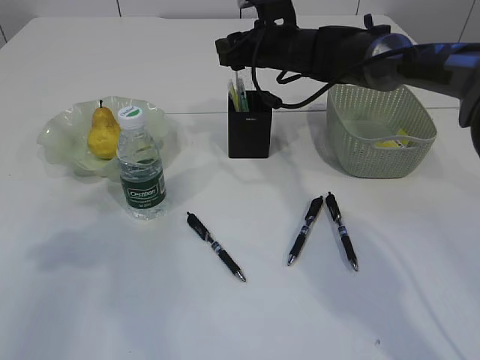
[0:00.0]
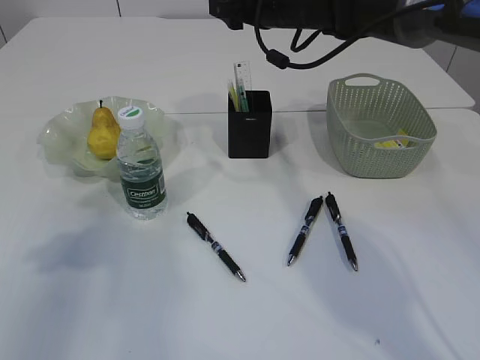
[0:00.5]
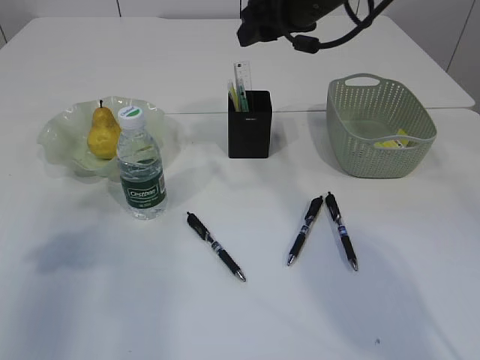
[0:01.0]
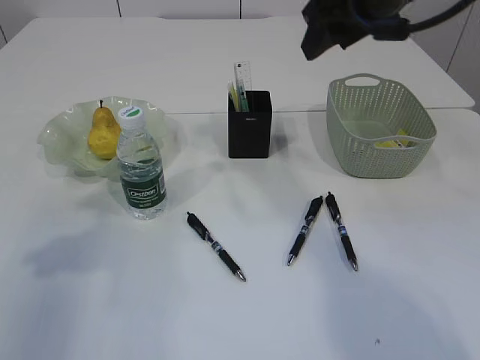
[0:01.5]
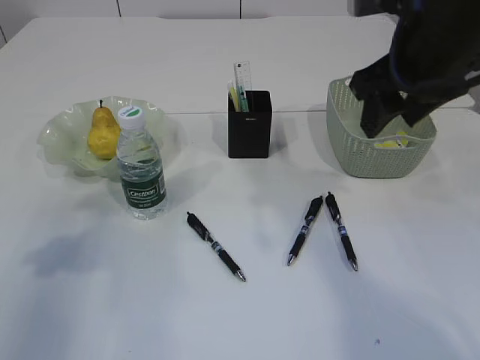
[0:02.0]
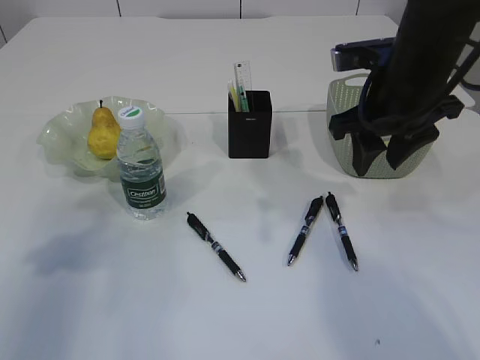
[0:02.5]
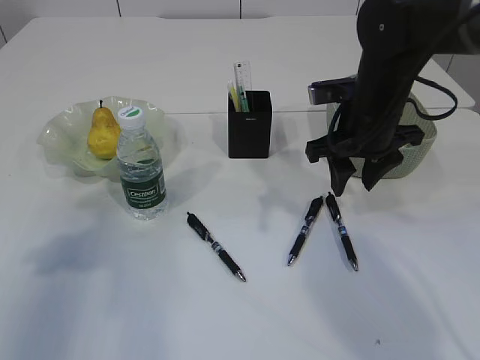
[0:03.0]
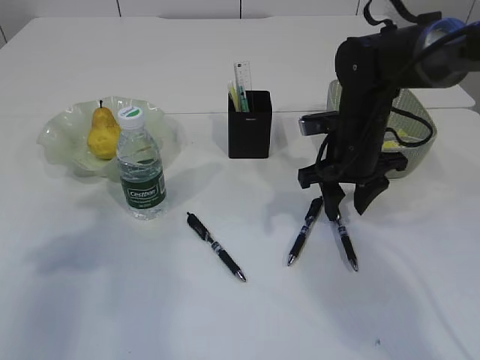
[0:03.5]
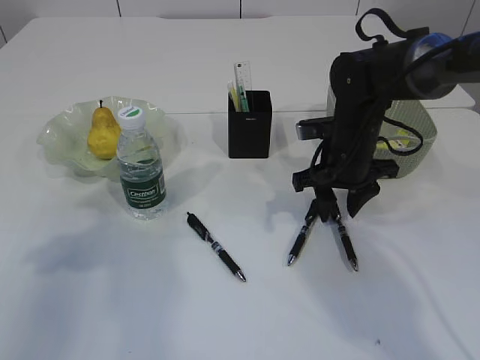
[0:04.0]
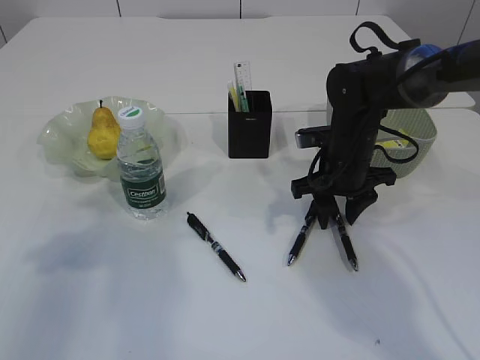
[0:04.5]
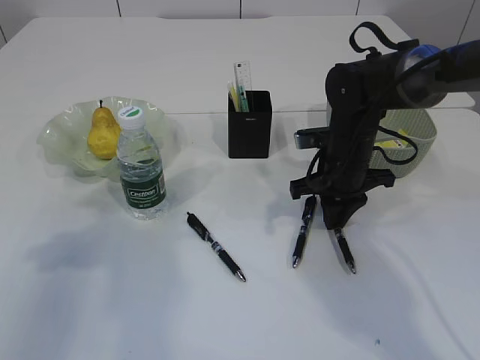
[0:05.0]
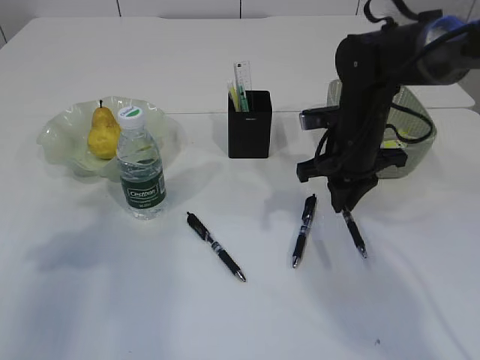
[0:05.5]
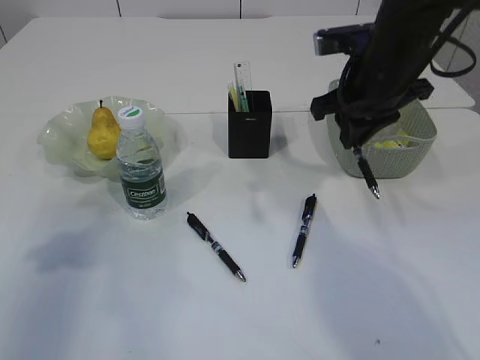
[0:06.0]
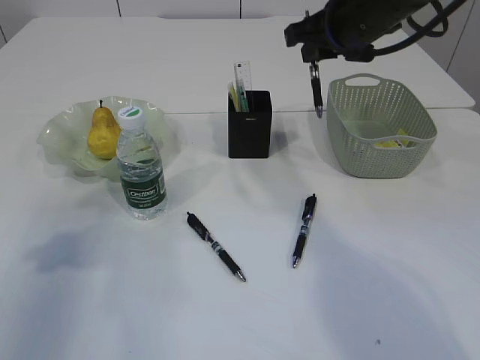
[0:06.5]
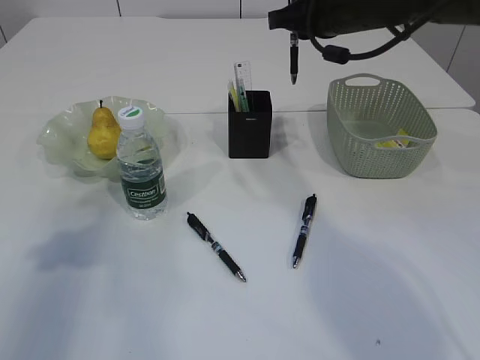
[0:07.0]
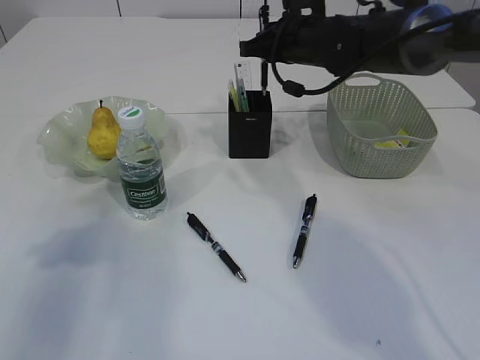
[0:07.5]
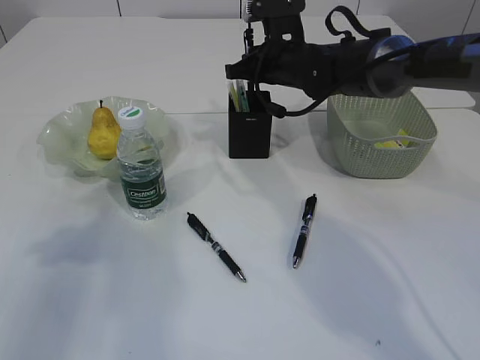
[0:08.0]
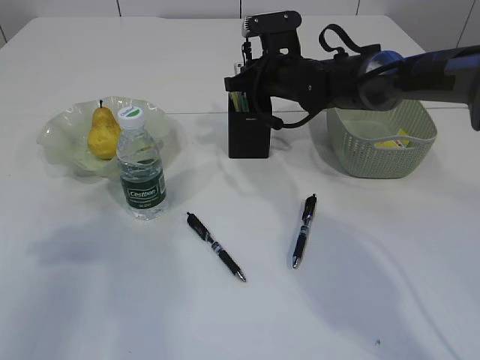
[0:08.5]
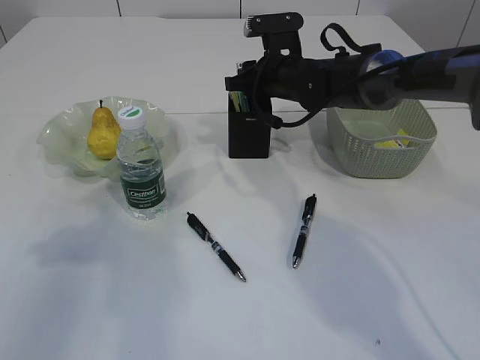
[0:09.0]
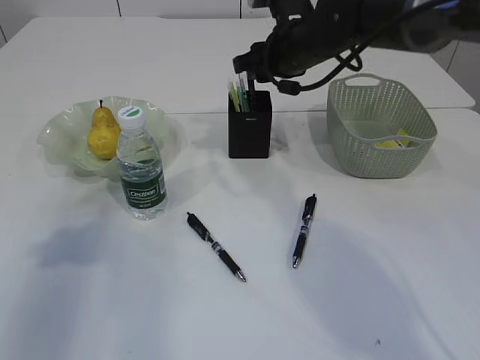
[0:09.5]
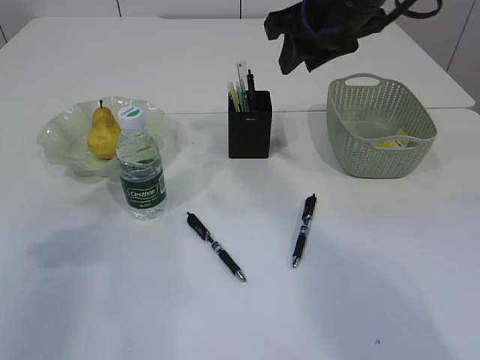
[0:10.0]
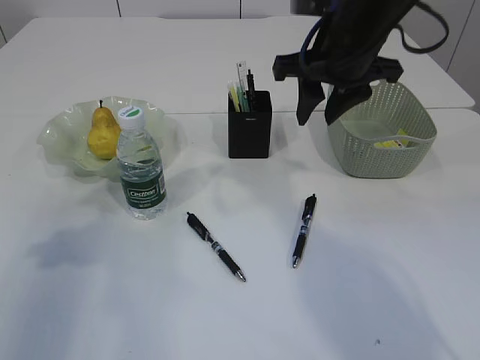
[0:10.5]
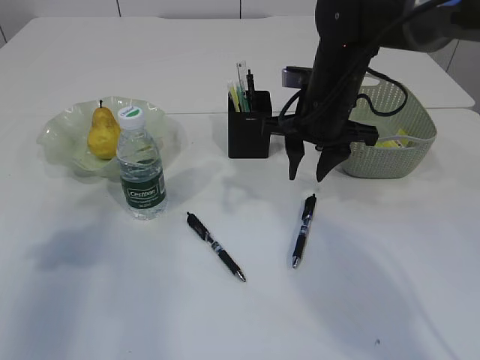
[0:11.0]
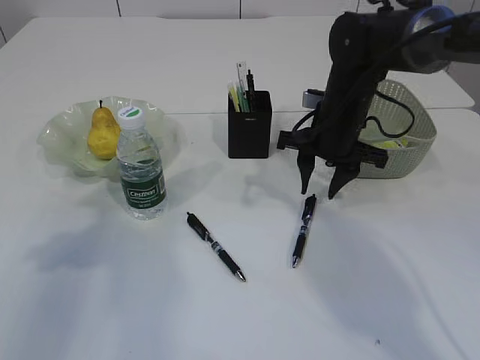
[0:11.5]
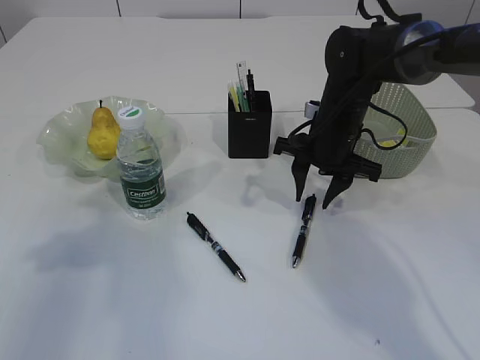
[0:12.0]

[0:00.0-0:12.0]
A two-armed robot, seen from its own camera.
Step, 0:01.5 to 0:05.5: Pick up the pen with right arm.
Step, 0:06.0 to 0:10.0: Place the pen into the pen holder.
0:00.0 to 0:02.0: The right gripper moves backward, upward and to the right, about 25 cm.
0:02.0 to 0:04.0: The right gripper shifts about 20 cm downward and forward.
0:04.0 to 0:06.0: The right gripper moves upward, some 10 cm, and closes up.
0:06.0 to 0:08.0: The right gripper goes some 15 cm forward, to the left and downward.
0:08.0 to 0:10.0: The right gripper goes about 15 cm upward and backward, and opens up.
0:10.0 to 0:12.0: The right gripper travels downward by approximately 15 cm.

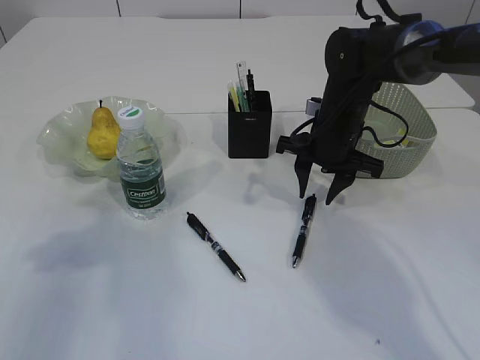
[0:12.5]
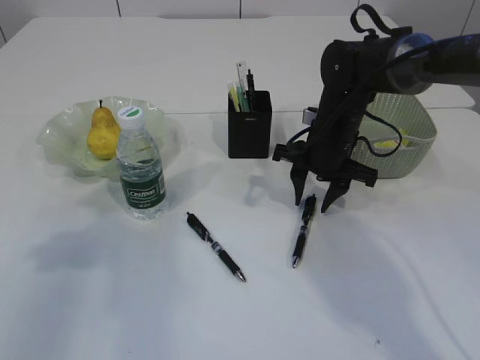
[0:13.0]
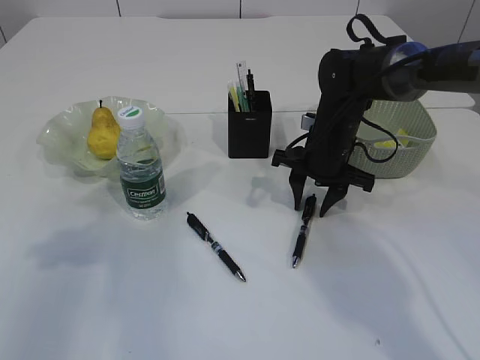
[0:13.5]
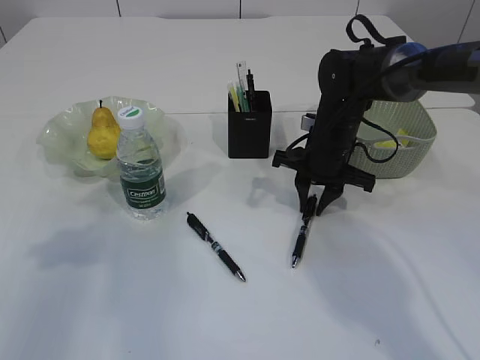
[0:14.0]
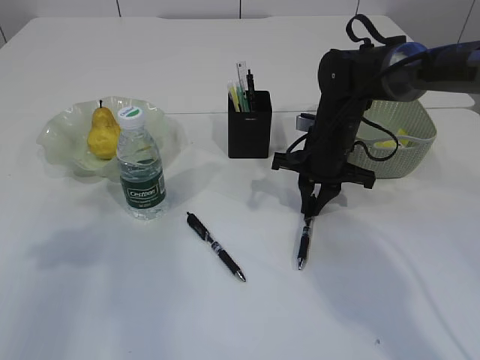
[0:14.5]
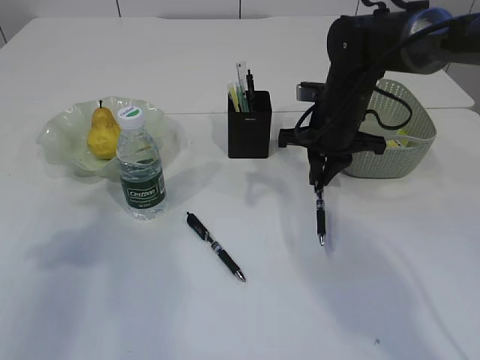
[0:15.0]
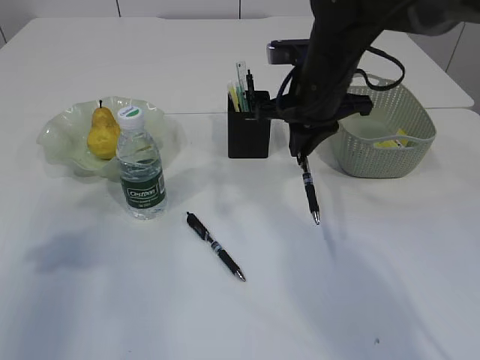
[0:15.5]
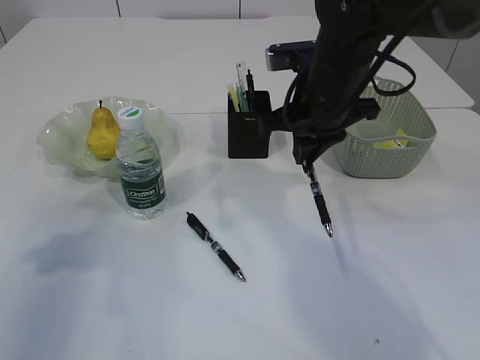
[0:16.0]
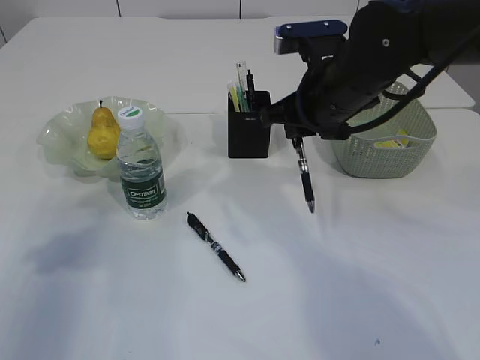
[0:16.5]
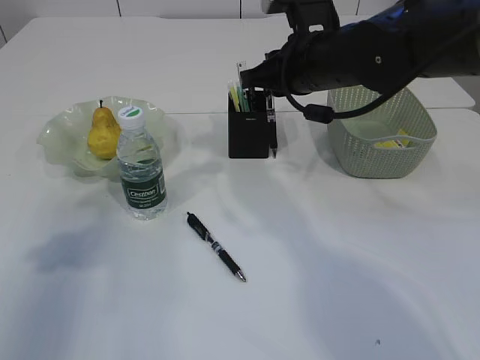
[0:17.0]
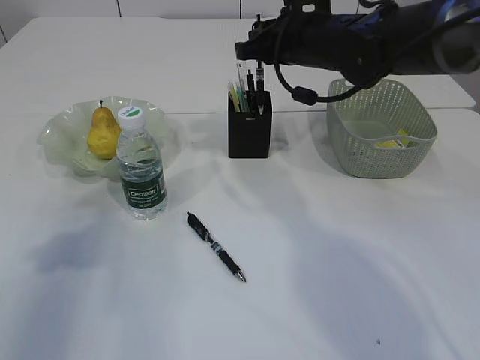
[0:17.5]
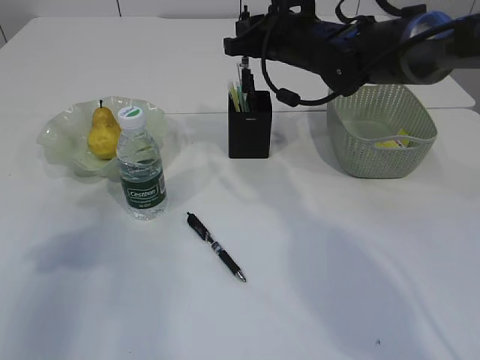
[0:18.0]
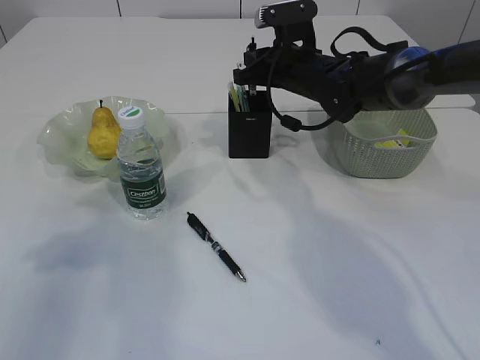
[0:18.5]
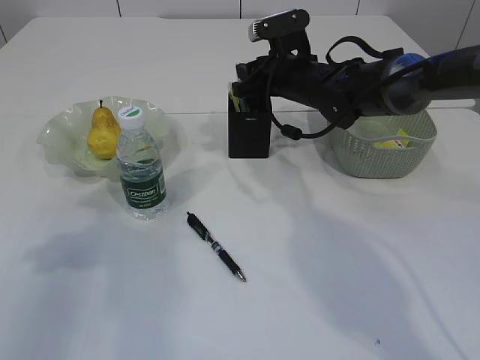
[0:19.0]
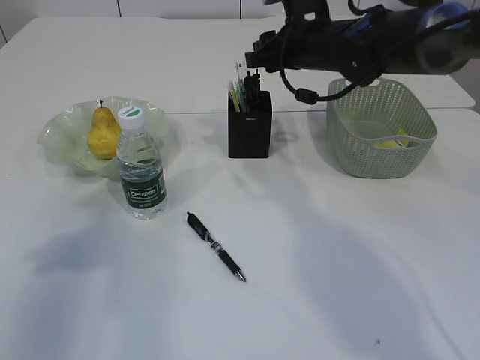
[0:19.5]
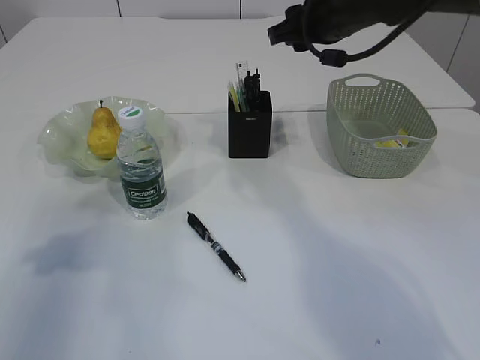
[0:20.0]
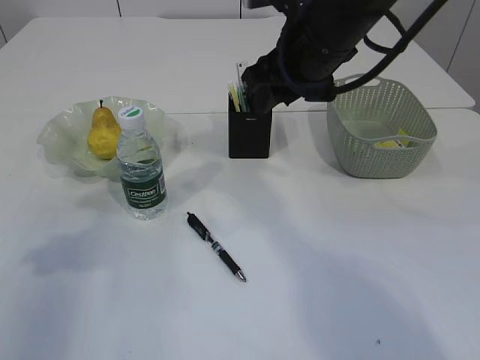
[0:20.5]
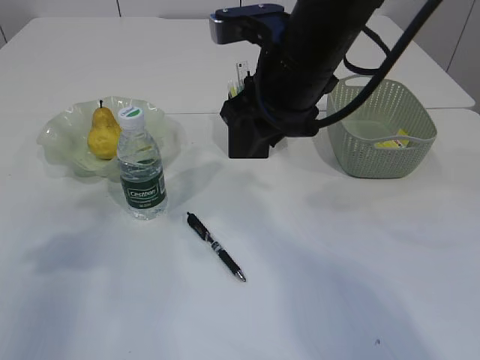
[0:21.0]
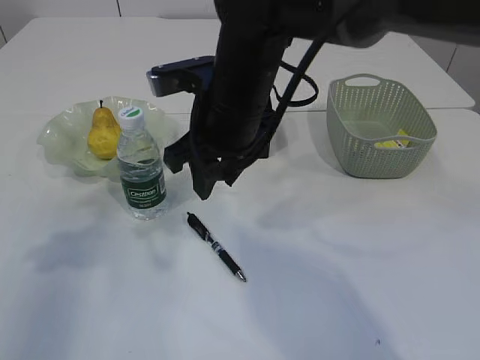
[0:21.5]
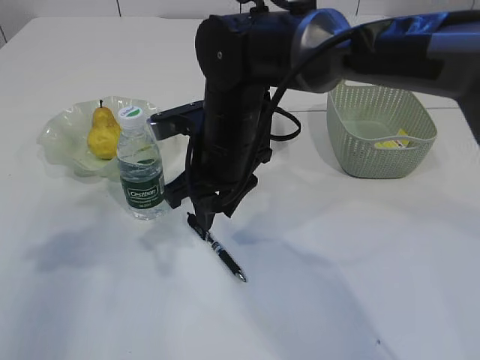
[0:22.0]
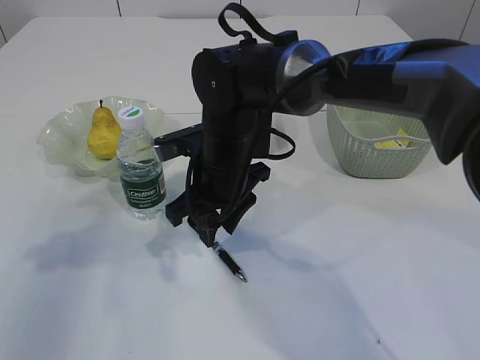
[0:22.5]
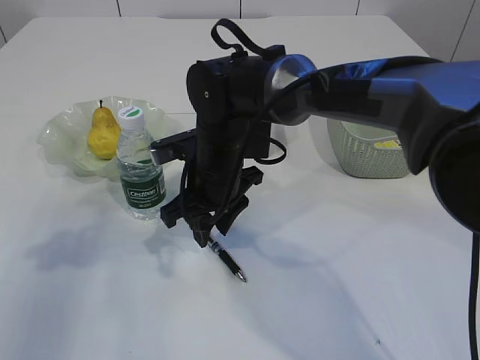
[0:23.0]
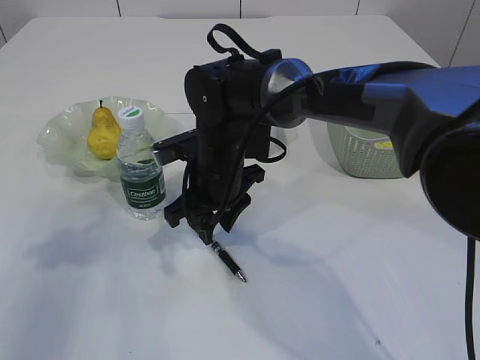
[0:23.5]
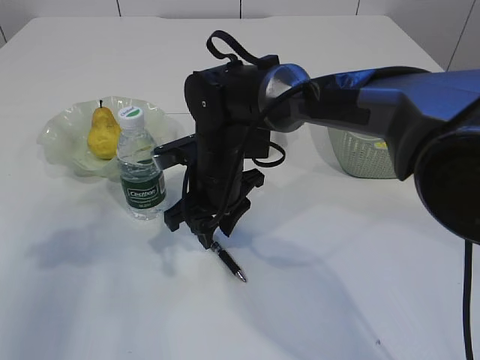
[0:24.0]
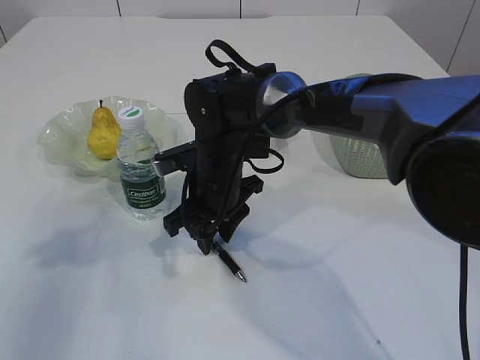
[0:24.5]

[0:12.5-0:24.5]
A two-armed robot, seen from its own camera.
Step, 0:12.5 to 0:15.0: Pick up the pen with right arm.
Step, 0:15.5 to 0:19.5: Place the pen into the pen holder.
0:12.5 to 0:14.5: The right gripper closes its fingers.
0:14.5 to 0:16.5: The right gripper moves upward and backward, approximately 15 cm.
0:16.5 to 0:18.5: The right gripper shifts about 10 cm forward.
0:18.5 to 0:20.5: The right gripper travels backward and upward by approximately 15 cm, and opens.
0:20.5 to 0:22.5: The right gripper heads downward and to the left, covering some 15 cm.
0:22.5 to 0:24.5: The grippers stay close to where they were, moving slightly.

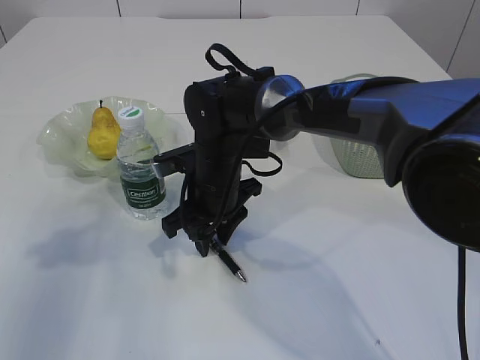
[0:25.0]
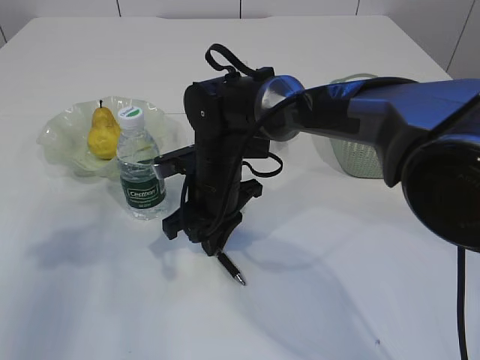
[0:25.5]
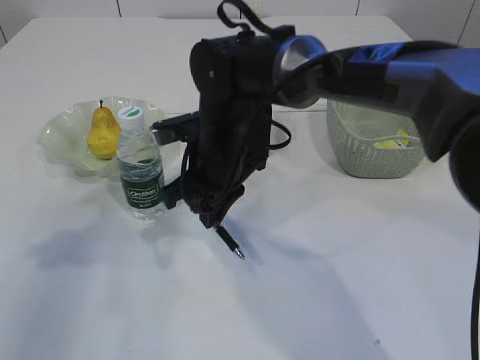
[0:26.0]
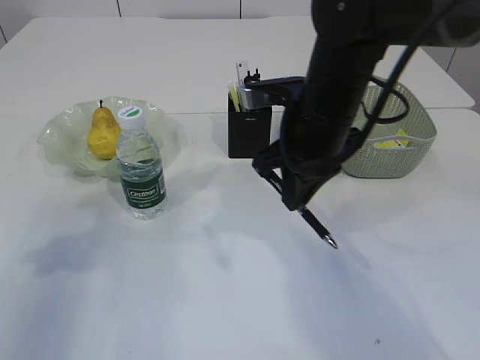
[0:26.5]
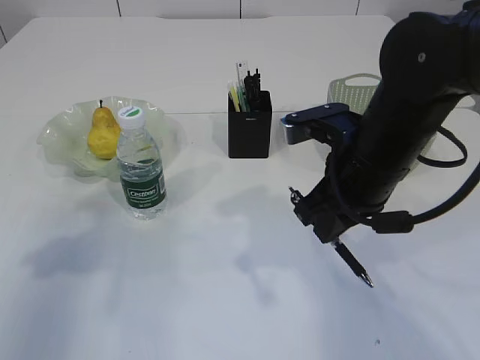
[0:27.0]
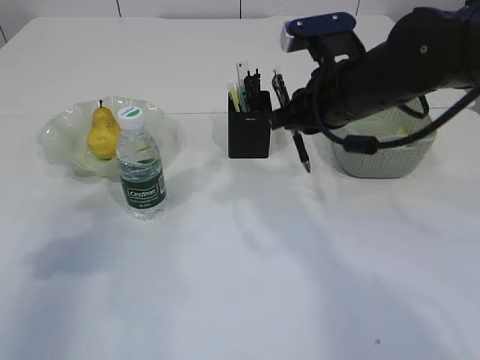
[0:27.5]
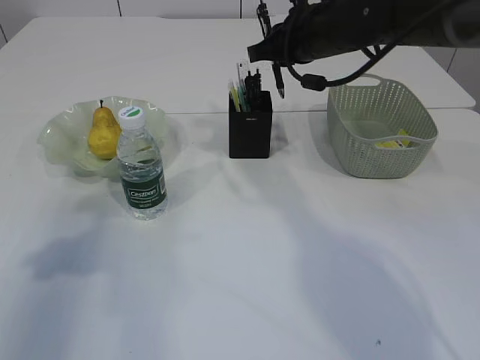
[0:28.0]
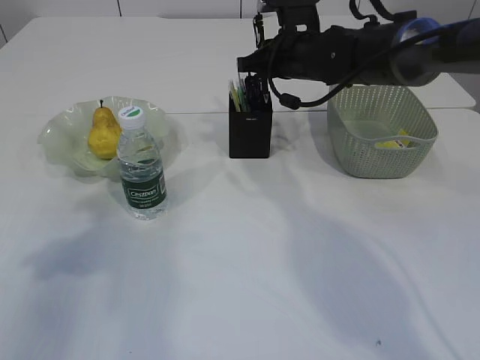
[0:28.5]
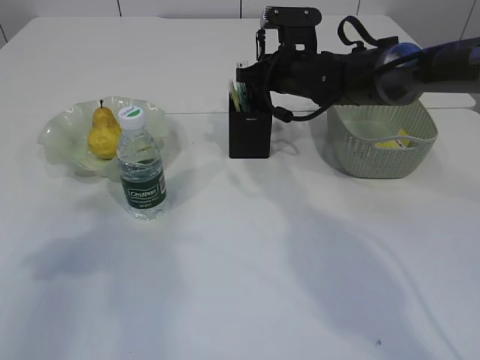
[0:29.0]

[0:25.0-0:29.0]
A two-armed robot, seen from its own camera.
0:25.0 to 0:27.0: The right gripper is displaced to the right, upward and backward by some 20 cm, and closes.
0:27.0 to 0:29.0: The right gripper heads forward, covering about 20 cm.
